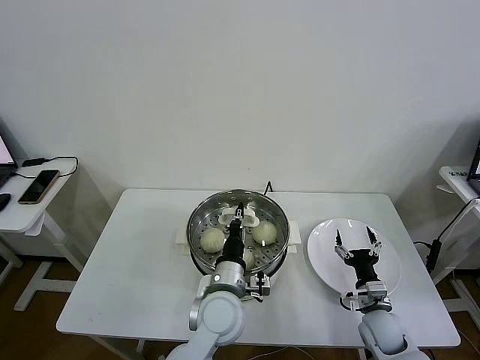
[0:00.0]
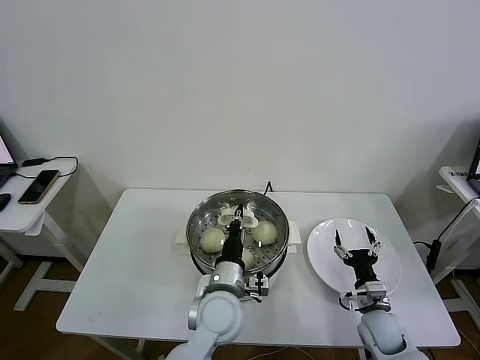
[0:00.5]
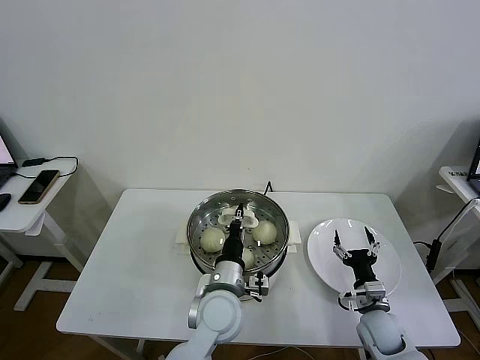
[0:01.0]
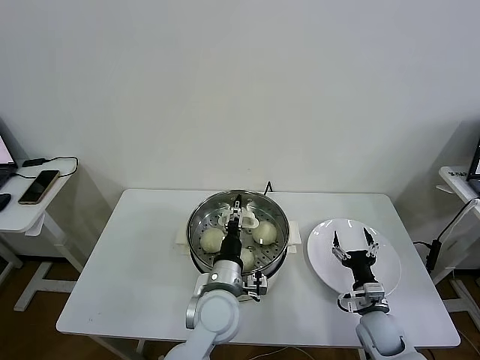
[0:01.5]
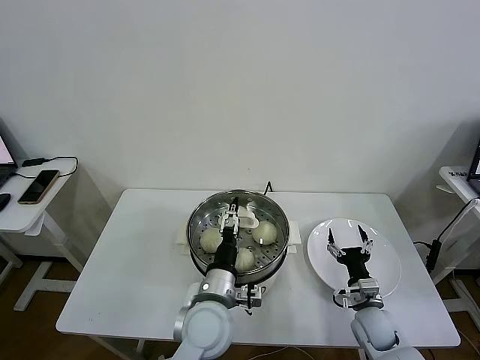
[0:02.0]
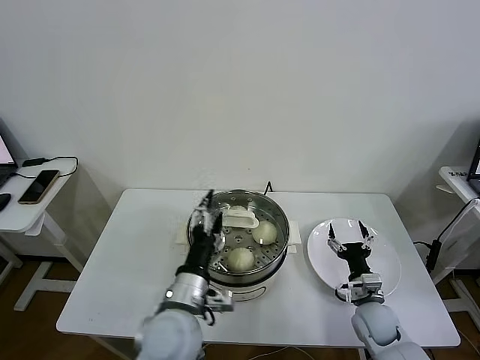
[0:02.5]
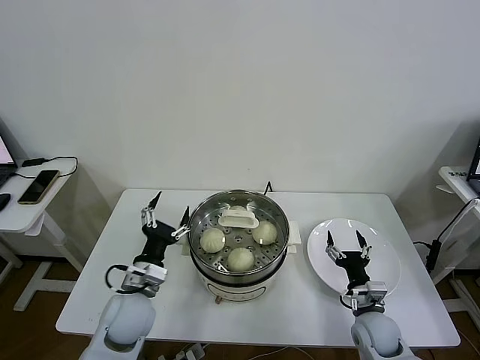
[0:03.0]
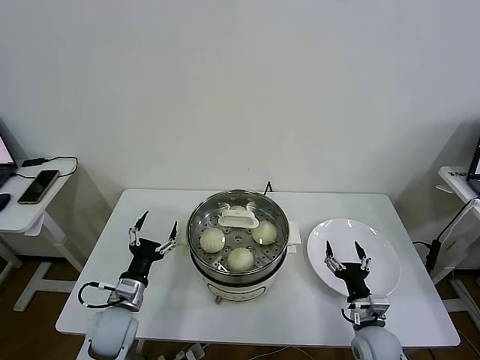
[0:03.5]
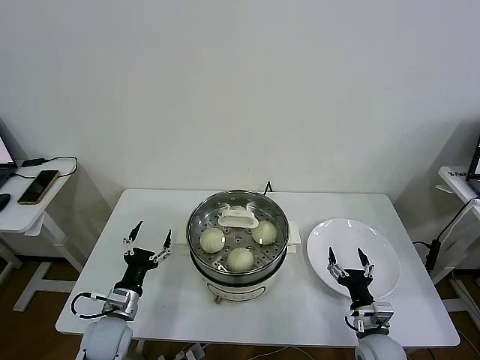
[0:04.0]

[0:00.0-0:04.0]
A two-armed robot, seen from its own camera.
Task of the whole recording: take steamed baozi put them in steamer then cover it.
0.0 to 2.0 s: The left gripper opens up.
2.0 to 4.0 s: The left gripper goes approximately 25 cm to the left and downward; the right gripper goes some 5 cm backward.

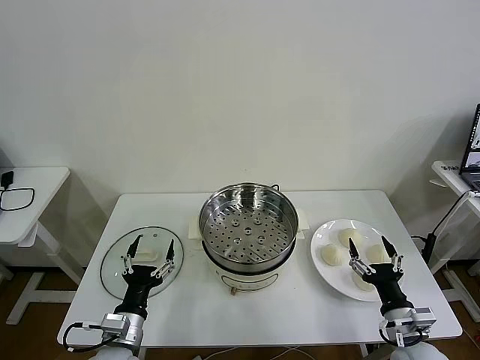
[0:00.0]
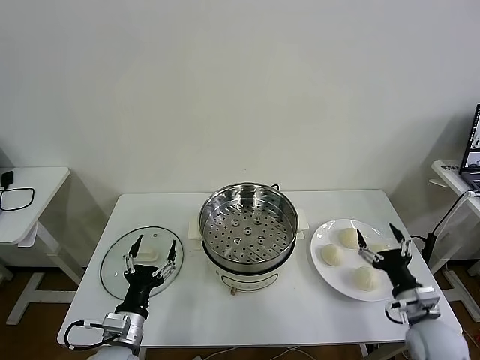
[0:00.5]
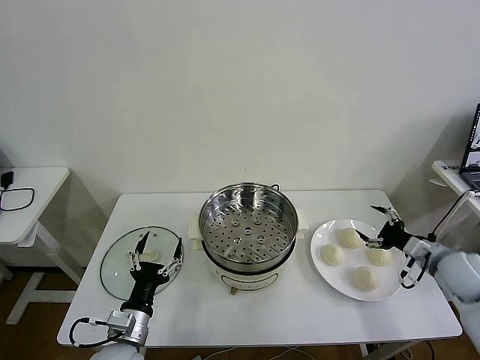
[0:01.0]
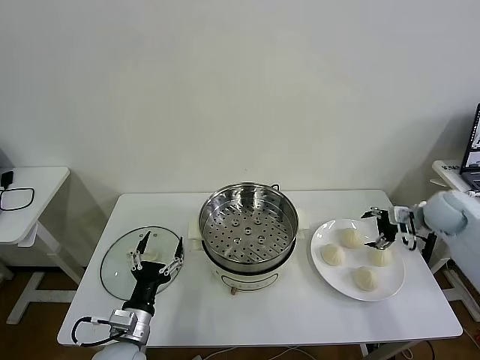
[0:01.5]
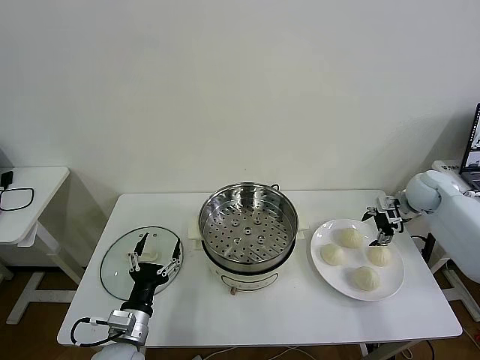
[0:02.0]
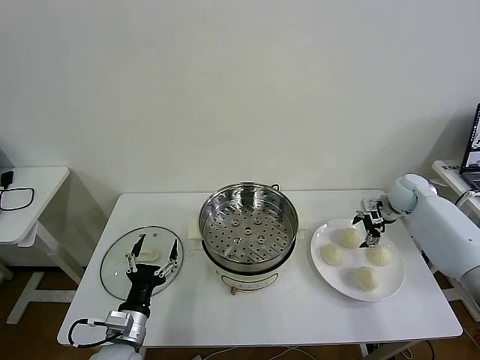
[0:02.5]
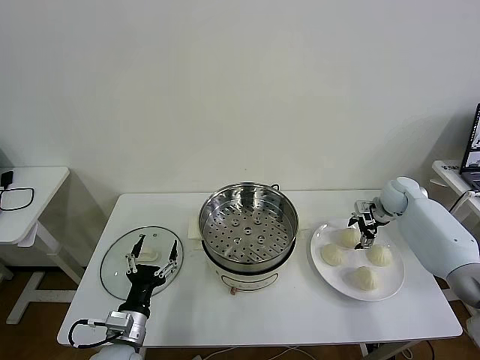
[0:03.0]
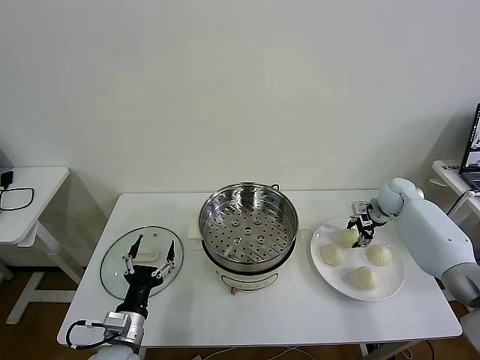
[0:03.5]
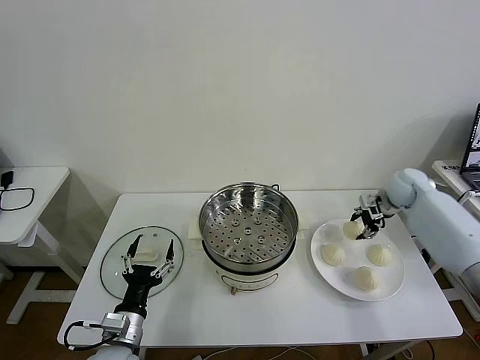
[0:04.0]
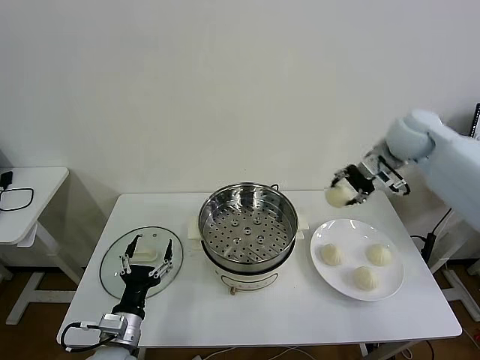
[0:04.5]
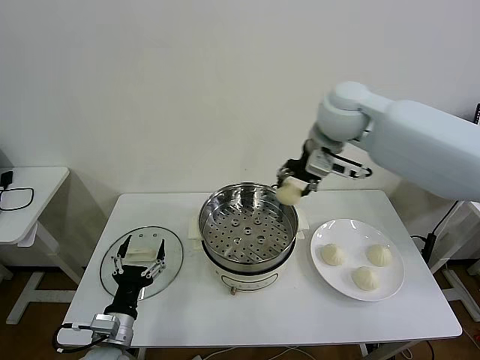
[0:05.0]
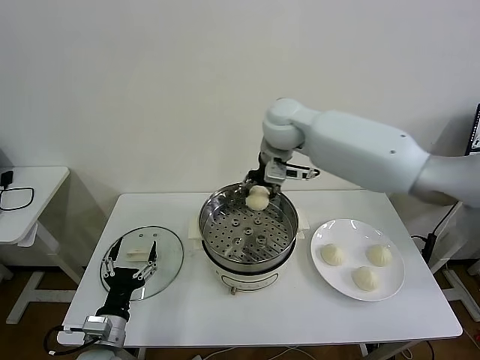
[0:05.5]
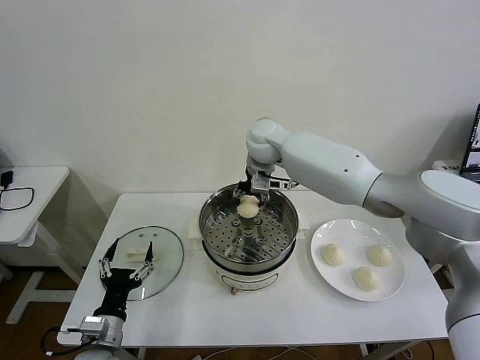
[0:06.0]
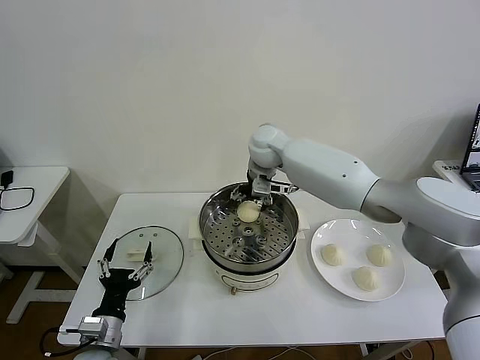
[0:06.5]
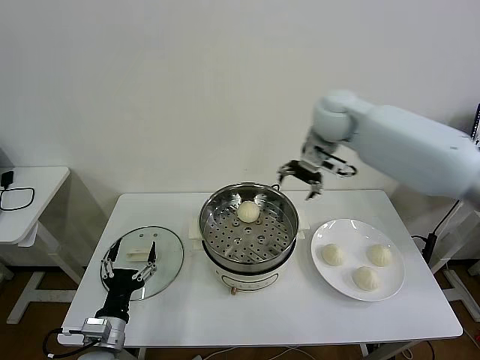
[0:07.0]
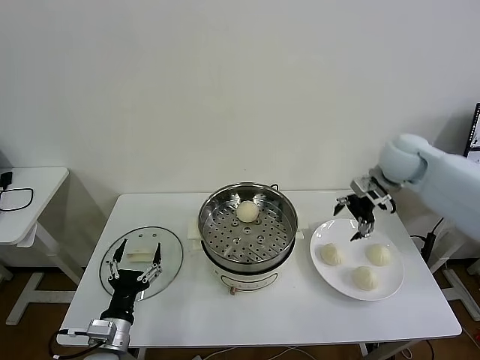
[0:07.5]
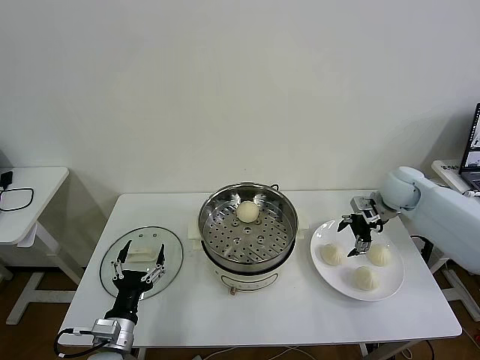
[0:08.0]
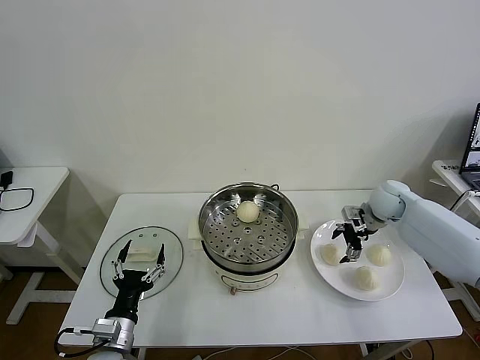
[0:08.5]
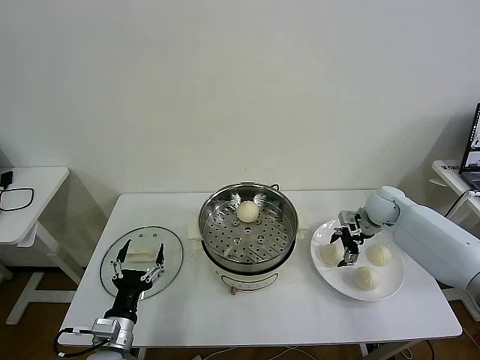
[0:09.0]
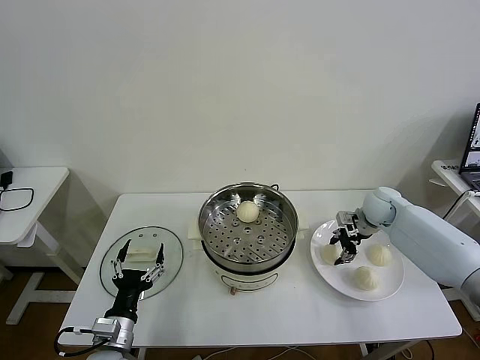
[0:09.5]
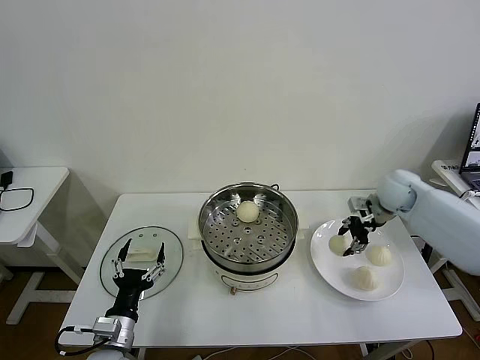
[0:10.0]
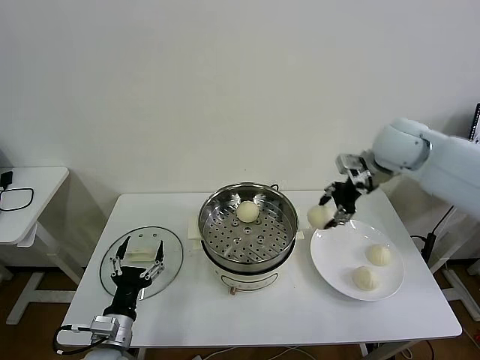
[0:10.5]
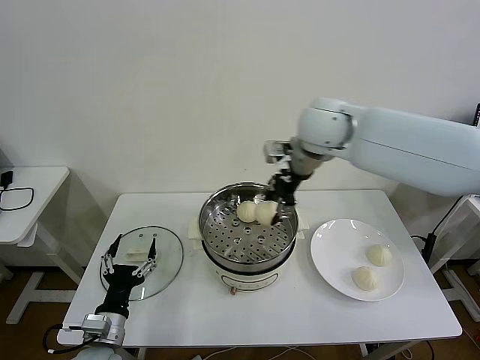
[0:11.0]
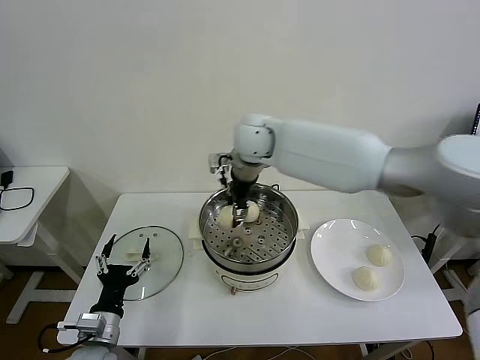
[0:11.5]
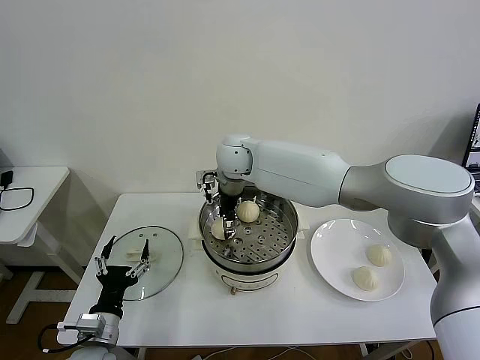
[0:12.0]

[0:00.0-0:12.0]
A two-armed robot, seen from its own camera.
Task of the whole recording: take steamed baozi put them in steamer then cover it.
Step, 0.0 to 3.5 s: Grasp the baozi in the plate with right gripper.
Step, 4.0 to 6.5 s: Place the baozi on the steamer with right gripper.
Step, 7.0 to 9.5 s: Grasp the baozi in the plate with right gripper.
2.0 to 4.0 s: The right gripper closes up.
4.0 to 6.0 s: The right gripper moves to the left, roughly 35 cm.
6.0 to 8.0 s: The right gripper goes some 35 cm to the right, and opens.
8.0 to 10.0 s: The right gripper reaches about 5 cm downward, then returns, and closes its fingers.
10.0 to 12.0 s: The right gripper moves to the left, about 40 cm, and opens.

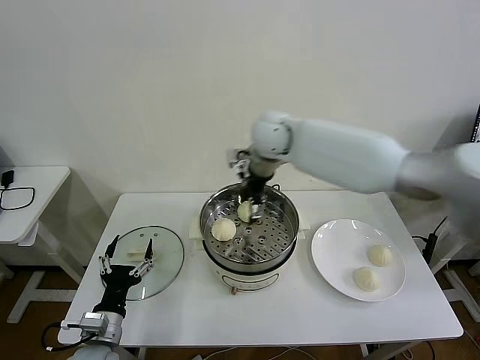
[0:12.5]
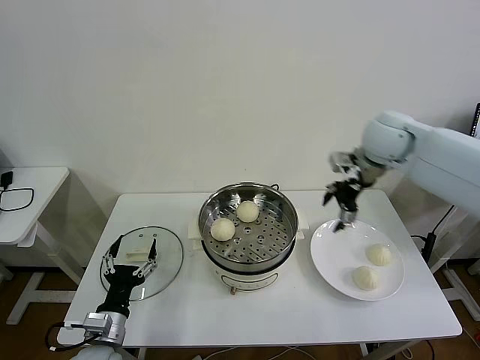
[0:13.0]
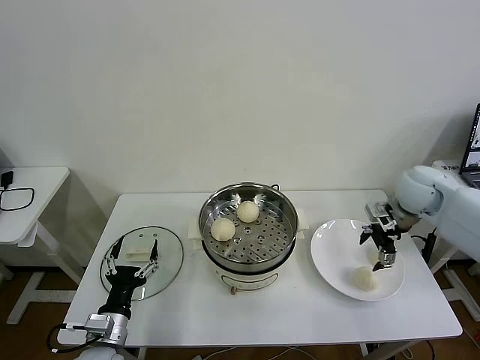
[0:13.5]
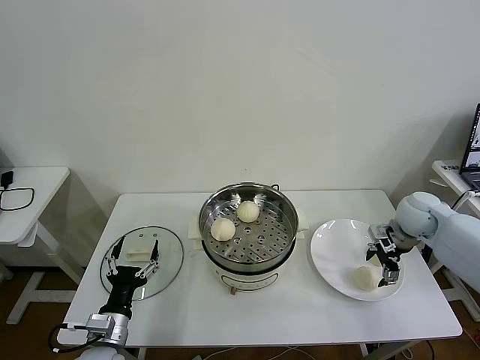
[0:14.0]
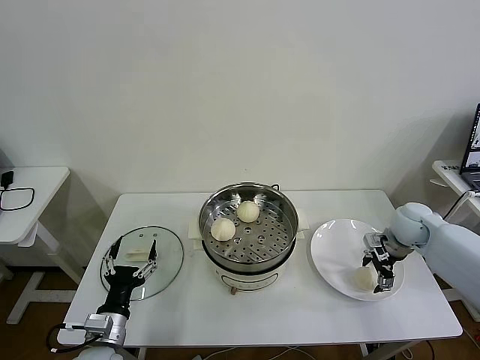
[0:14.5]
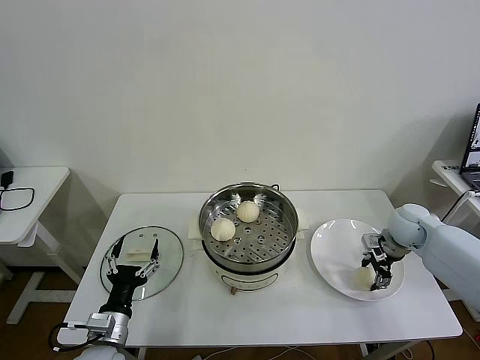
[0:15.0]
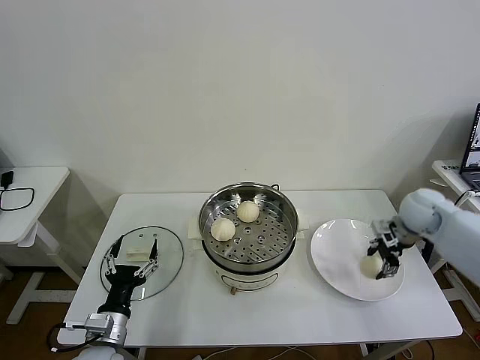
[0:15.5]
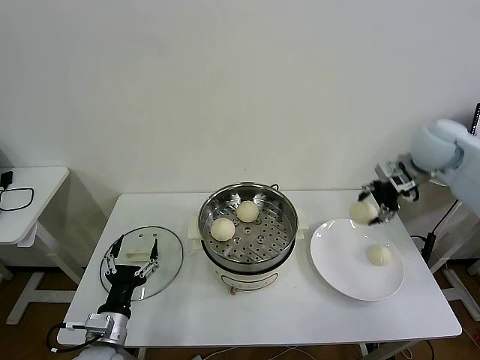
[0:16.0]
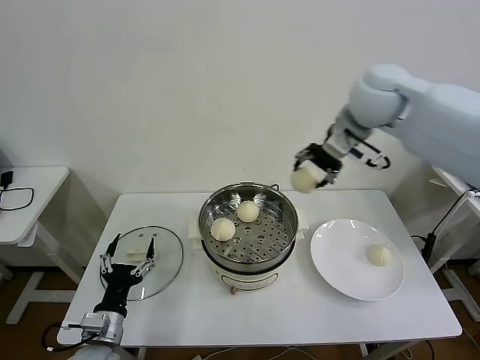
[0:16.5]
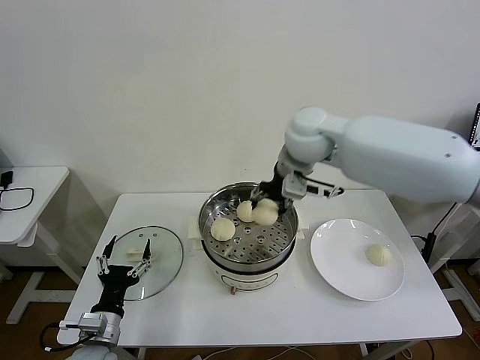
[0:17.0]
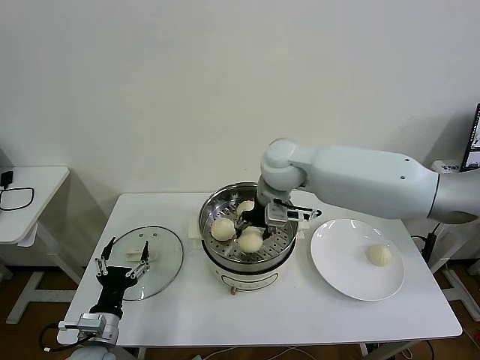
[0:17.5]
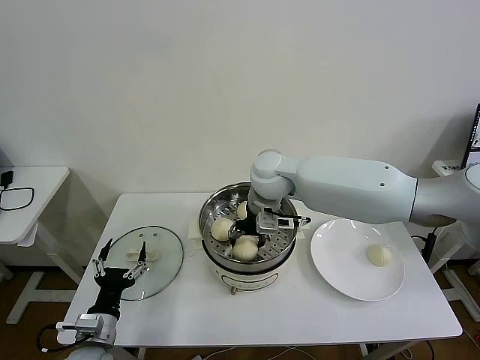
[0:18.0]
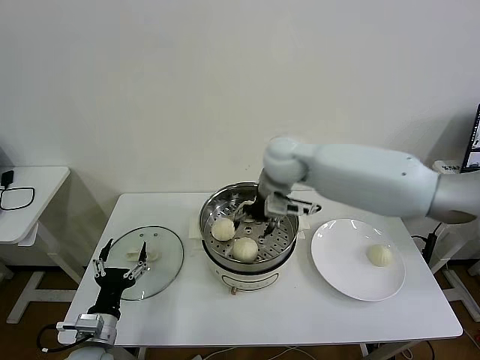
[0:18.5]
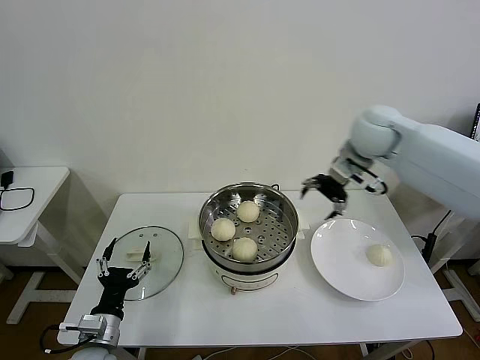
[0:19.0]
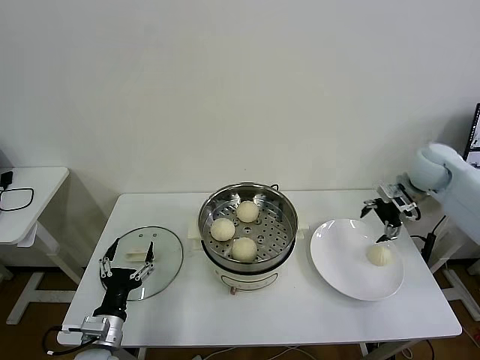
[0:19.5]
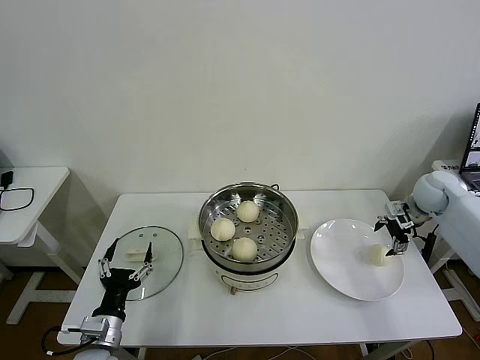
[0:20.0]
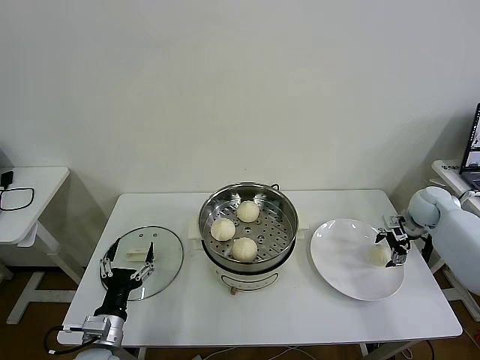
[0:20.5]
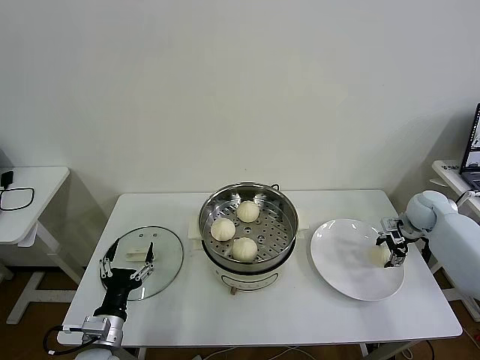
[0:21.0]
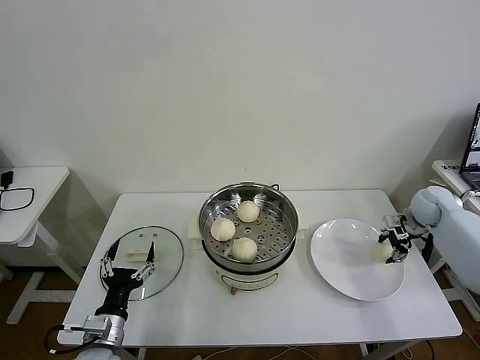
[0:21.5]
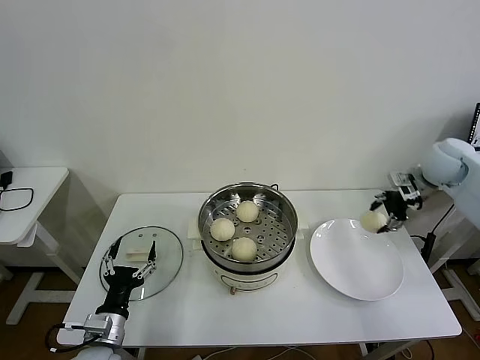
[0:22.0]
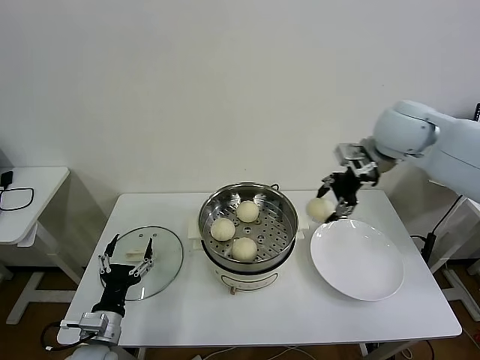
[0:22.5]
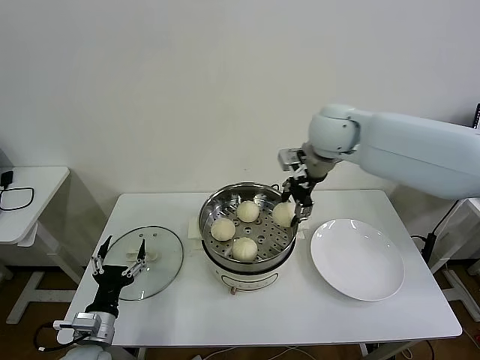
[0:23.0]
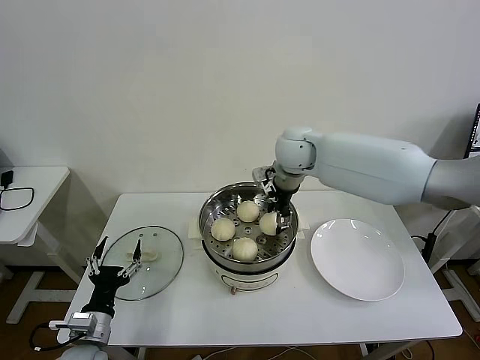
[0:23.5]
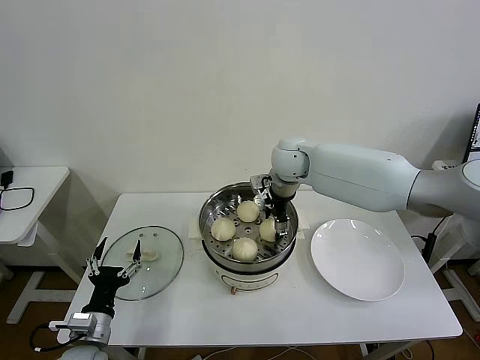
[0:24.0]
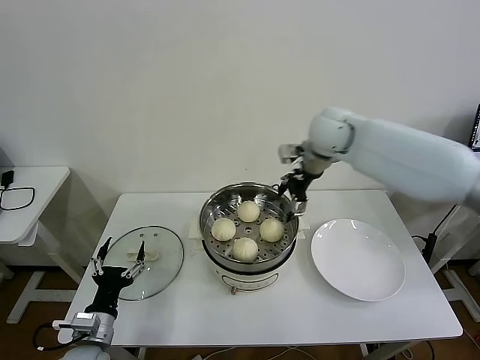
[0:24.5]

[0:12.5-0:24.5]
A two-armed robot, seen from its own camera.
Task of the whole recording: take steamed baozi put them in steamer then cover it.
Step, 12.5 to 15.0 s: Grasp the baozi in the plate with right gripper.
Step, 15.5 to 18.0 s: Place the baozi on the steamer with right gripper.
Step, 18.5 to 21.0 s: Grasp the baozi in the plate with right gripper.
Step, 22.0 to 24.5 s: Place the baozi on the steamer with right gripper.
12.5 to 14.5 s: The right gripper heads to the right and downward, covering about 40 cm.
14.5 to 16.5 s: The right gripper moves upward and to the left, roughly 35 cm, and closes up.
16.5 to 18.5 s: The right gripper heads downward and to the left, covering approximately 15 cm, and opens.
18.5 to 20.5 s: The right gripper heads to the right and downward, covering some 40 cm.
20.5 to 22.5 s: The right gripper is displaced upward and to the left by some 30 cm, and closes up.
22.5 to 24.5 s: The right gripper heads to the left and forward, covering about 10 cm, and opens.
